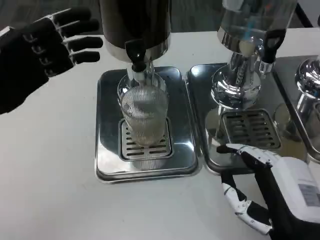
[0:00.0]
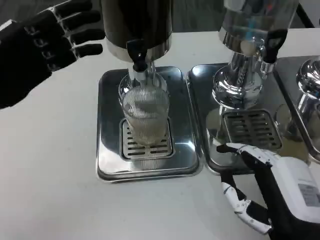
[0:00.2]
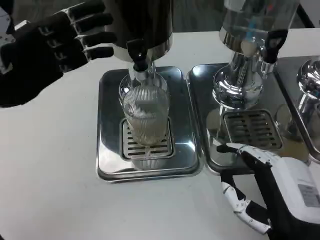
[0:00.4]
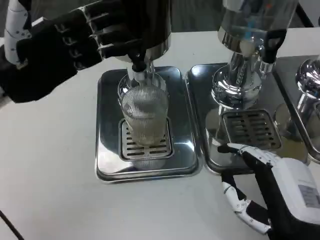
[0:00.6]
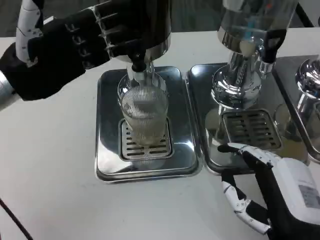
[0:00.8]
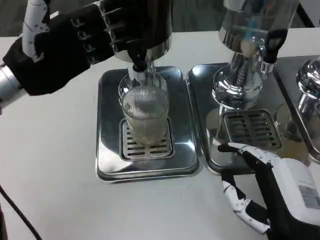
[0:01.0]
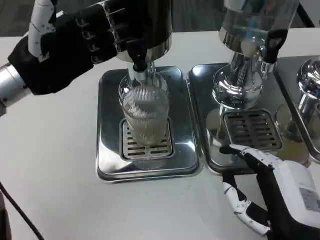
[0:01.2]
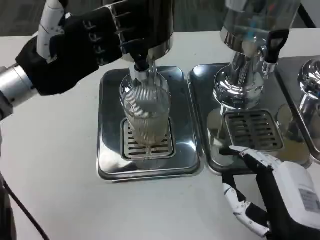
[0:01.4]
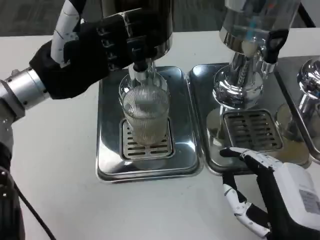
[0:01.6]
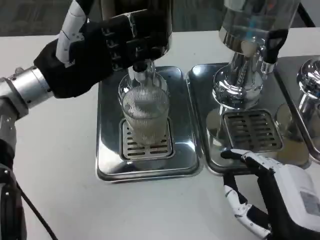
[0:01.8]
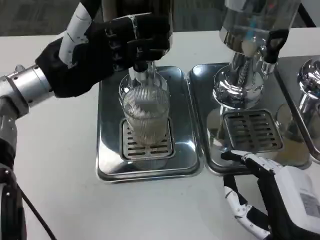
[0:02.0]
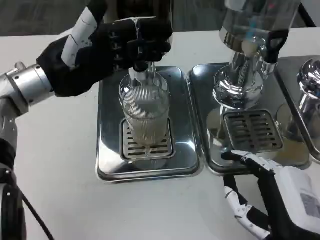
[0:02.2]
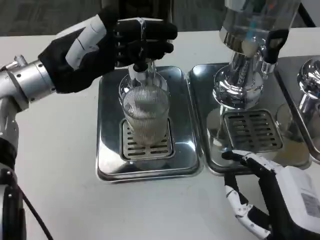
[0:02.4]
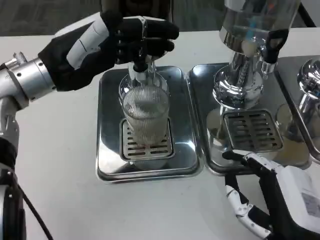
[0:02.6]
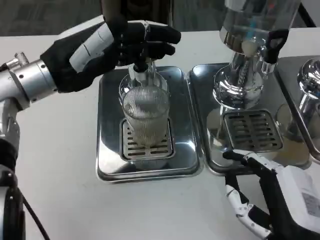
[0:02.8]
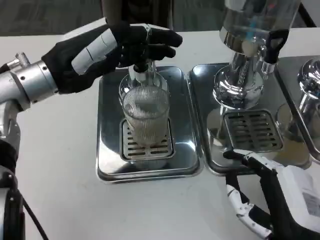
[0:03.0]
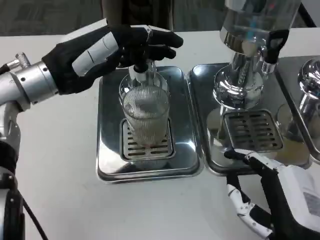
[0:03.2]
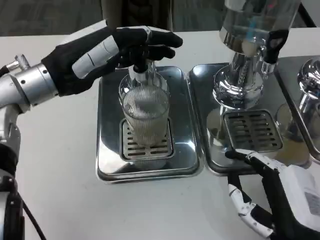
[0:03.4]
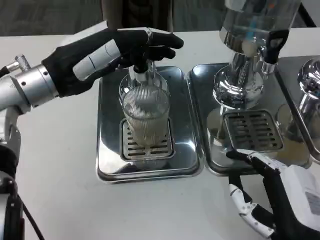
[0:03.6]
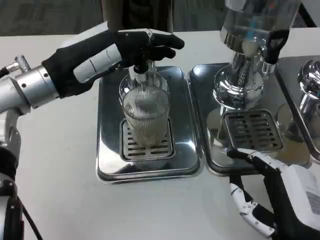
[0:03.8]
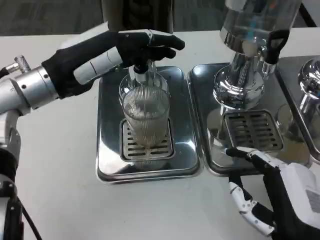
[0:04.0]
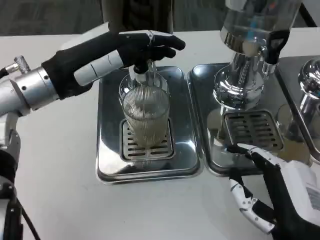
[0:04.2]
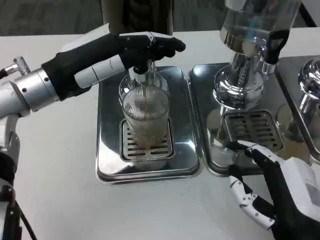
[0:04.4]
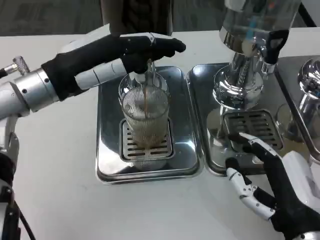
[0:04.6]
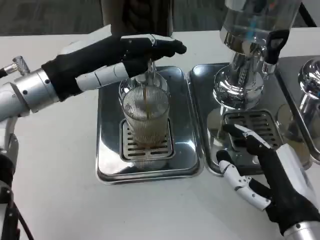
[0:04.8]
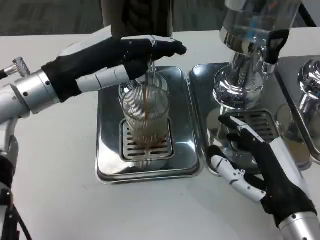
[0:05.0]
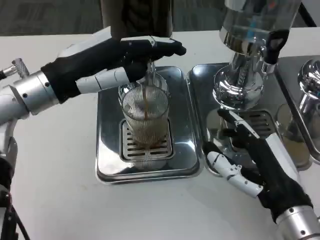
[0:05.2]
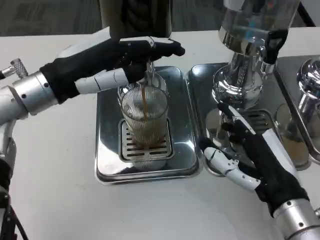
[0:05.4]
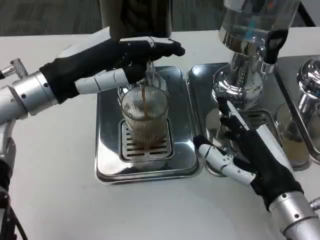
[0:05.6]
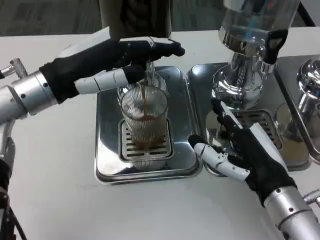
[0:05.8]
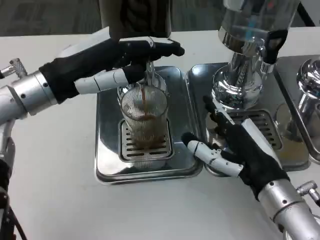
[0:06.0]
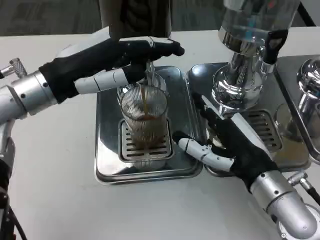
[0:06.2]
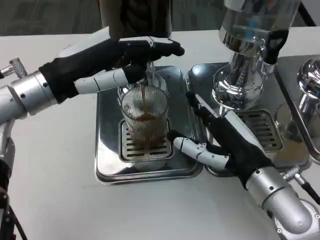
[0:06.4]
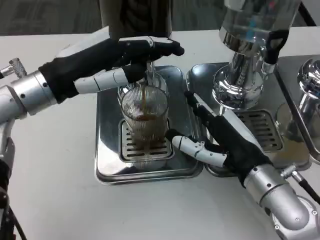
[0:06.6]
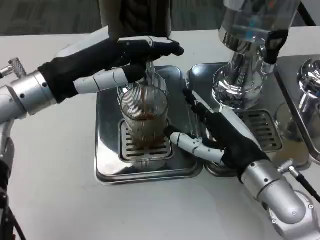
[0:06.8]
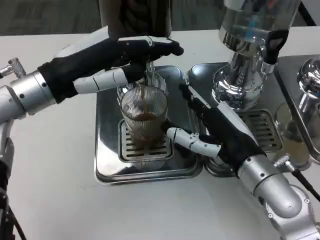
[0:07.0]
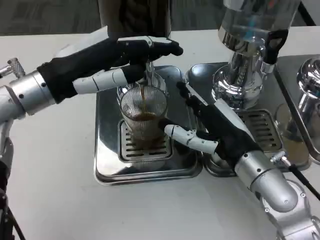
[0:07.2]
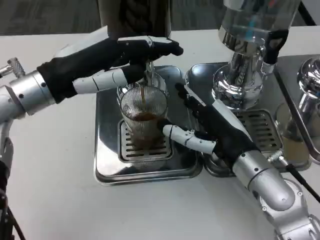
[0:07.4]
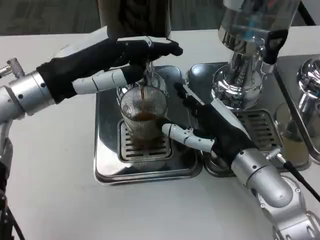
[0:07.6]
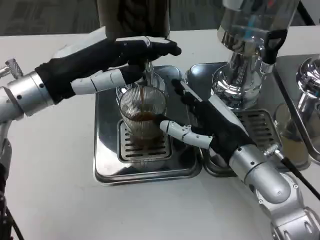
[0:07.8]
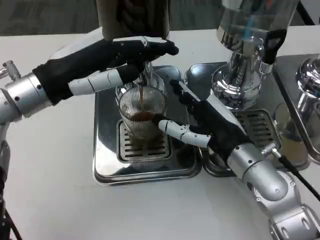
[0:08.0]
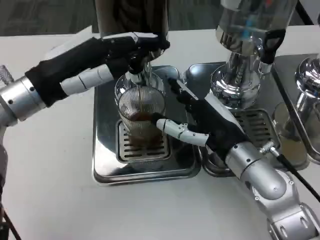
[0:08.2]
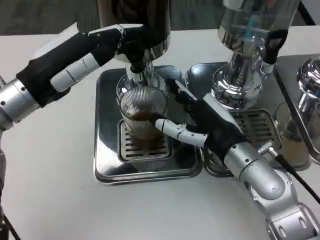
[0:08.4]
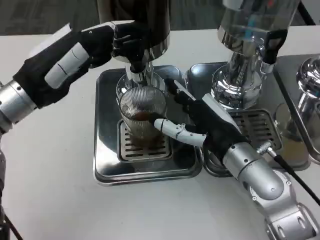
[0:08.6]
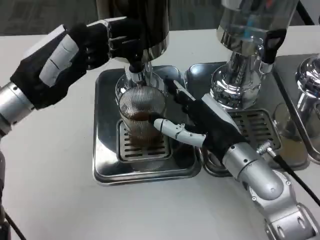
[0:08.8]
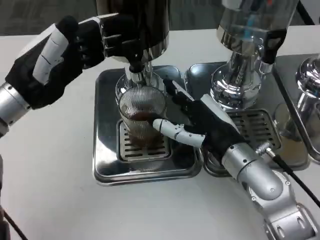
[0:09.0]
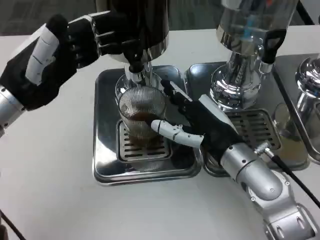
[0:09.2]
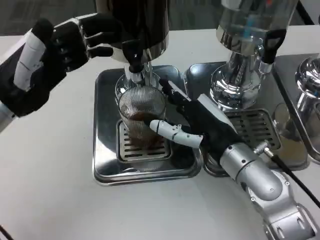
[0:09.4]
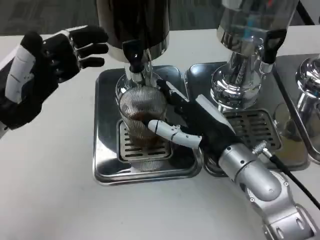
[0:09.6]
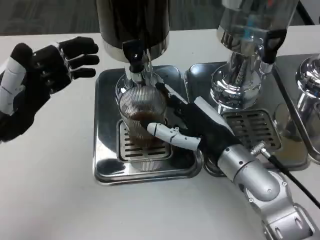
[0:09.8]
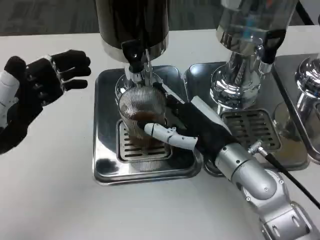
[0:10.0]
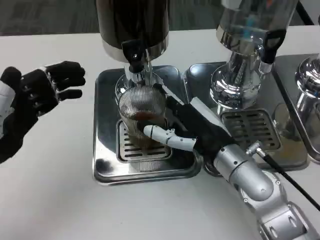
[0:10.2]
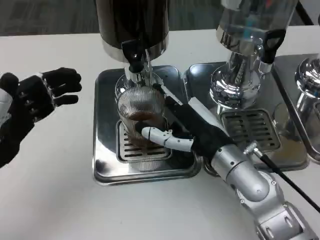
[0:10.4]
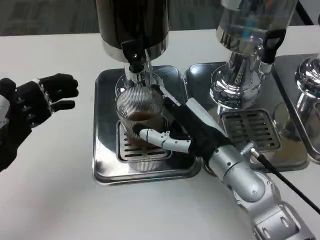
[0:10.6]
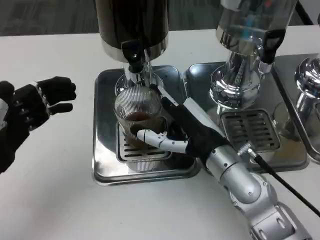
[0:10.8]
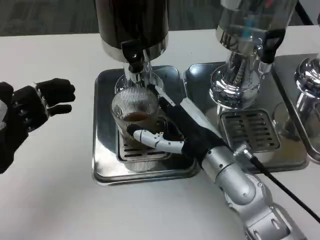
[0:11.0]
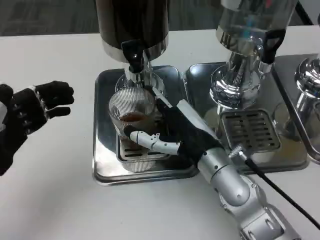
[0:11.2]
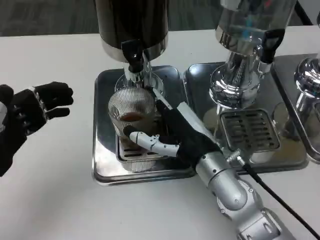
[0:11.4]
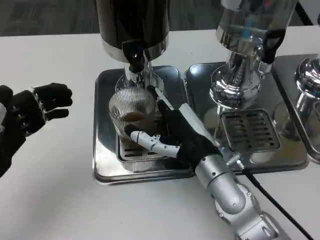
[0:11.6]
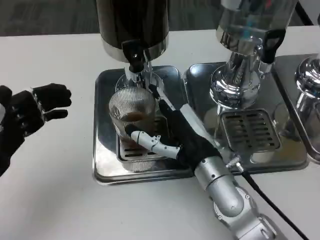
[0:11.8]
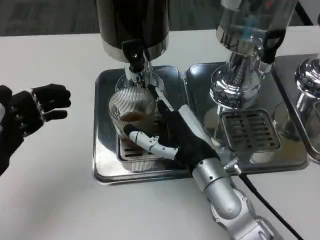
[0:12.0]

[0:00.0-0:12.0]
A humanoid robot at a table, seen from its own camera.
Task of the whole recording: Grasp the cup under the faucet to collect the drink, then remove the cup.
0.0 to 1.6 s: The left hand travels to the right and forward by about 10 cm.
3.0 to 4.4 s: There are only small adjustments of the hands.
4.4 to 6.0 s: The right hand moves forward, approximately 10 cm.
6.0 to 7.6 s: The right hand moves approximately 5 cm.
9.0 to 10.4 s: The left hand is displaced backward and downward by some 10 cm.

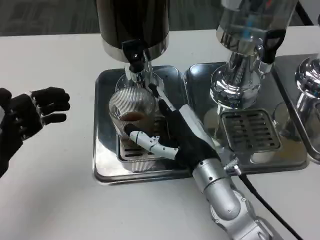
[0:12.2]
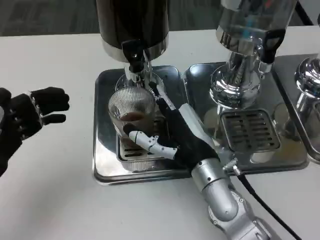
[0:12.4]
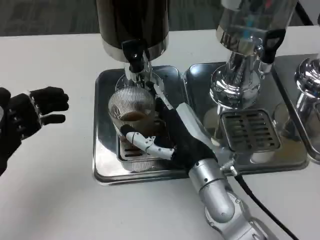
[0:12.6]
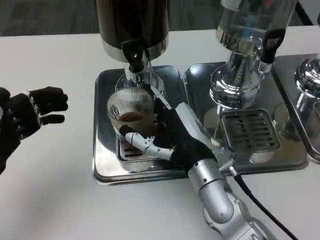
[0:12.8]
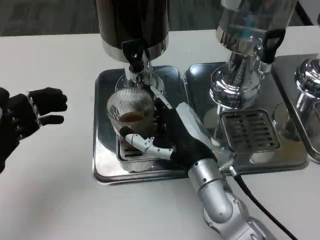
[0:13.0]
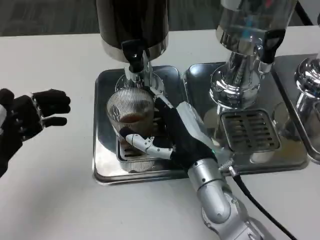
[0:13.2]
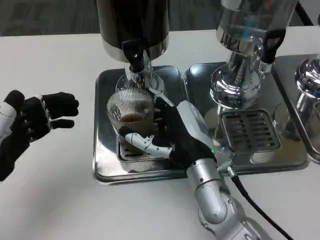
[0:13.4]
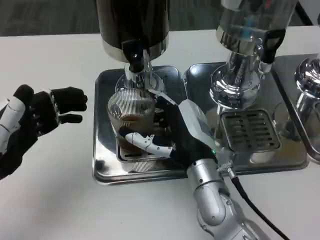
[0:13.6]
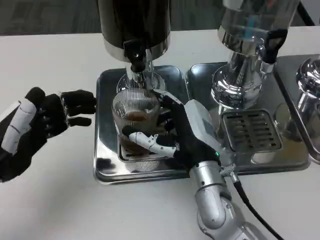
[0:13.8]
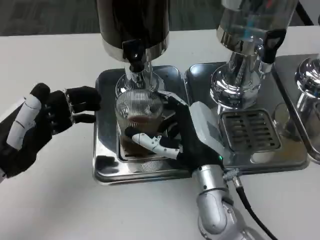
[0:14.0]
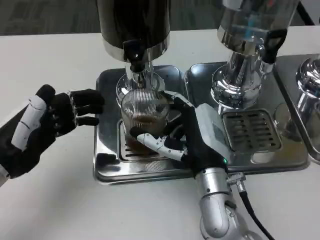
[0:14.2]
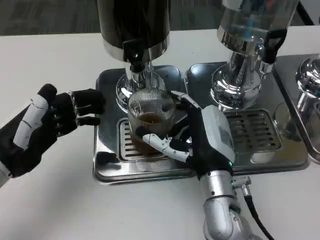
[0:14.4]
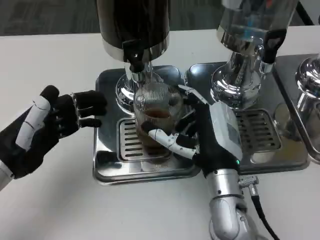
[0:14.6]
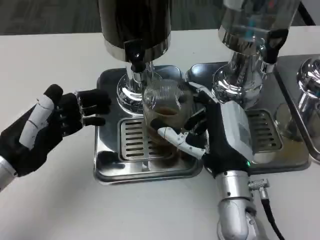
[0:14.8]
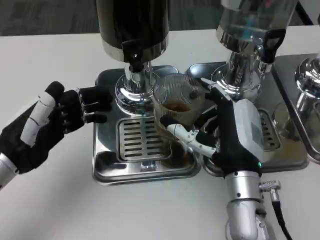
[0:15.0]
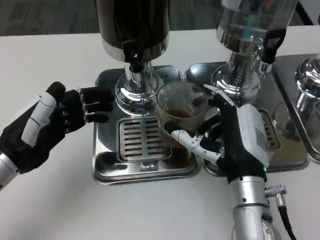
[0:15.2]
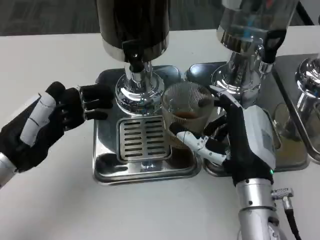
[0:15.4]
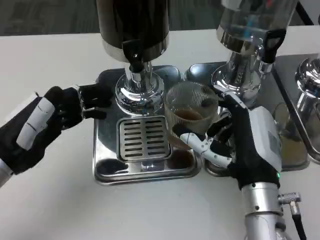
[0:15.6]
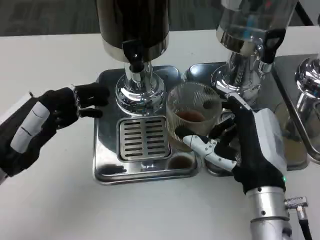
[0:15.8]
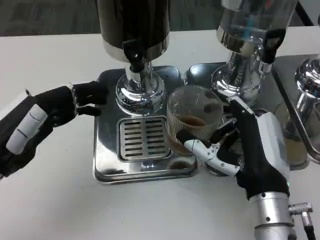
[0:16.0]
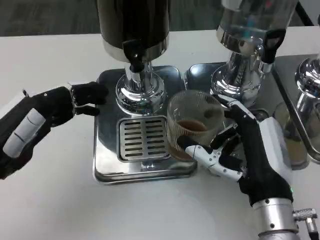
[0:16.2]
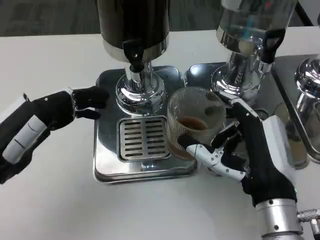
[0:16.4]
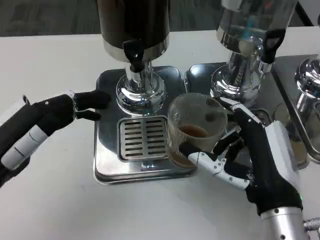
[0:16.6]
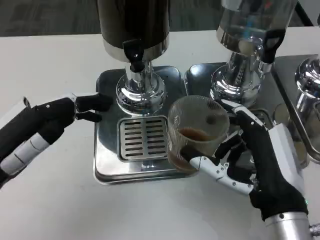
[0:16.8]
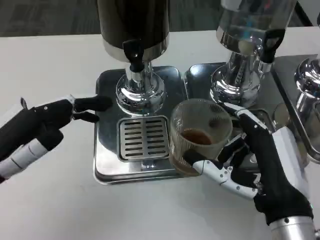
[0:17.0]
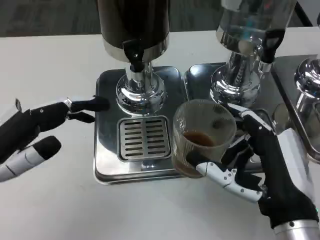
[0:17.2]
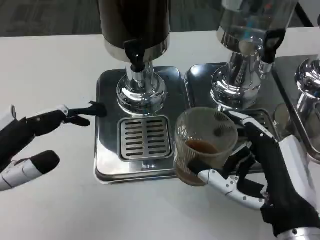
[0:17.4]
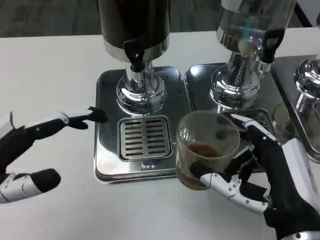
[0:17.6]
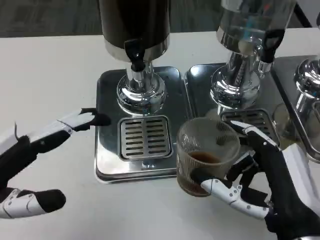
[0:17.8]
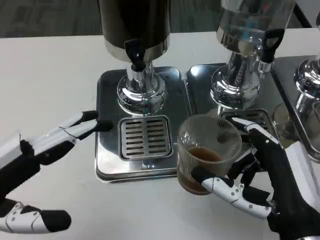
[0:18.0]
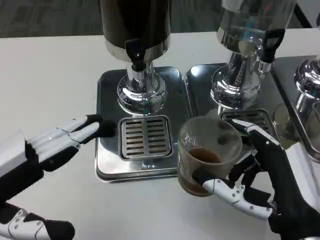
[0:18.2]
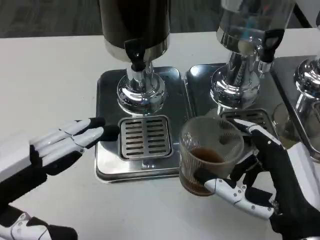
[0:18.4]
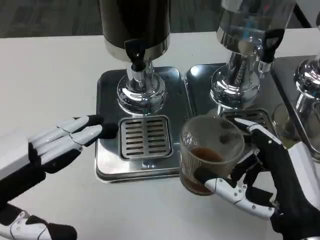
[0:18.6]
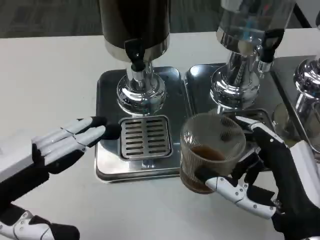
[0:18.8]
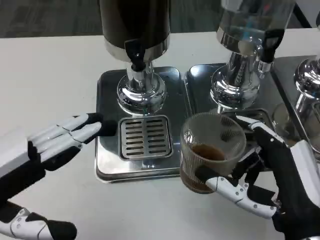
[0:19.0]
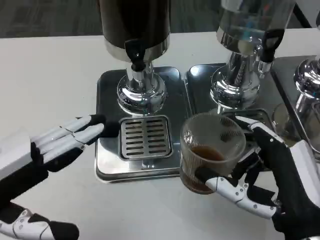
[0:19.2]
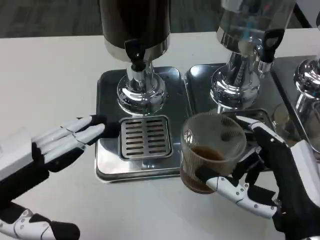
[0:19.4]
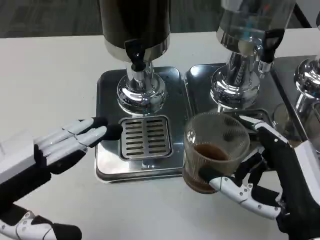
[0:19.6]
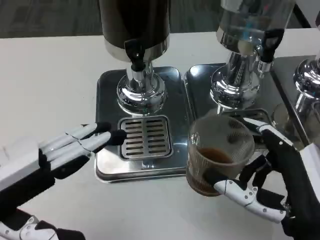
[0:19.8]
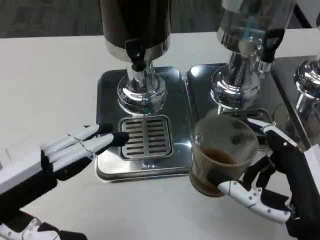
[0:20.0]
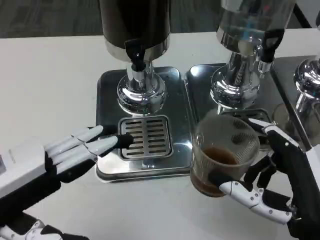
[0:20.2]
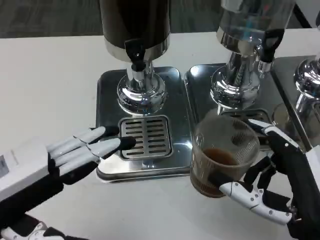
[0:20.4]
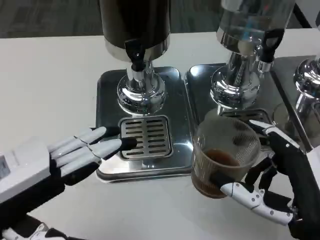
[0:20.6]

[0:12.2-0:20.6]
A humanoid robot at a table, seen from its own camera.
Task of the whole recording: Grasp the cup under the faucet to collect the drink, then remove the cup.
12.2 to 13.6 s: The hands stay close to where they were, moving slightly.
15.0 to 16.4 s: The right hand is displaced backward by approximately 5 cm.
16.4 to 17.8 s: The left hand is displaced backward by about 5 cm; the right hand changes place by approximately 5 cm.
17.8 to 20.6 s: The hands stay close to where they were, moving slightly.

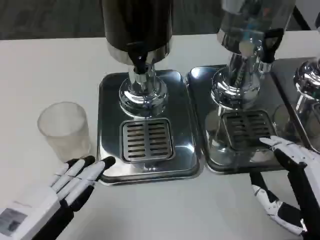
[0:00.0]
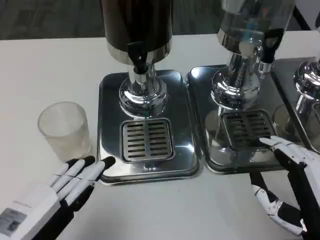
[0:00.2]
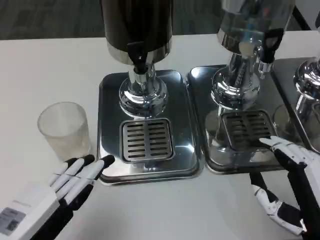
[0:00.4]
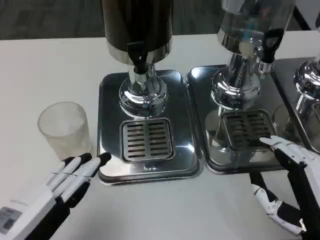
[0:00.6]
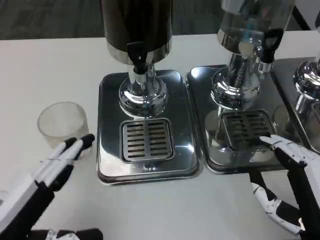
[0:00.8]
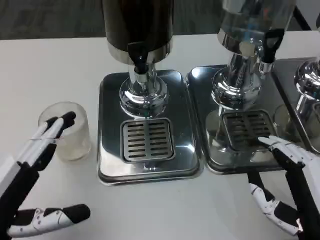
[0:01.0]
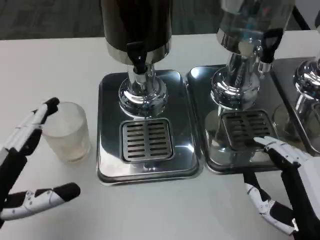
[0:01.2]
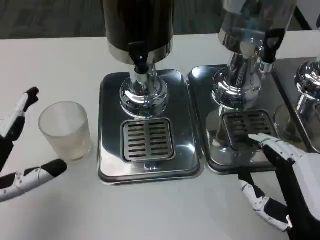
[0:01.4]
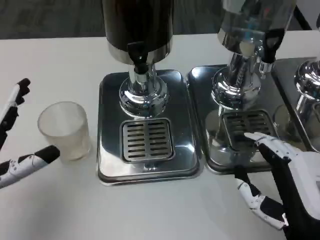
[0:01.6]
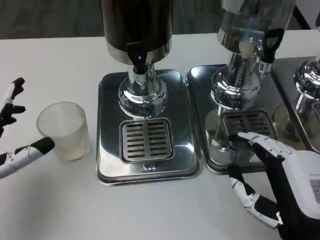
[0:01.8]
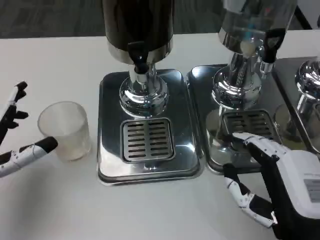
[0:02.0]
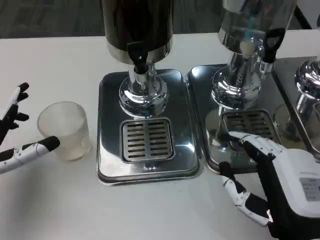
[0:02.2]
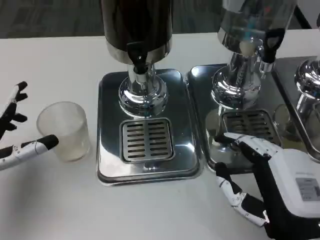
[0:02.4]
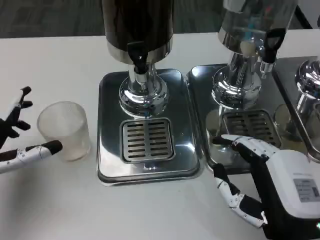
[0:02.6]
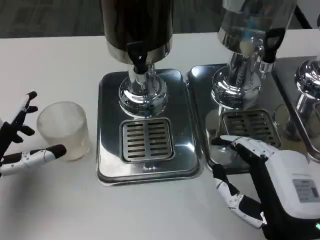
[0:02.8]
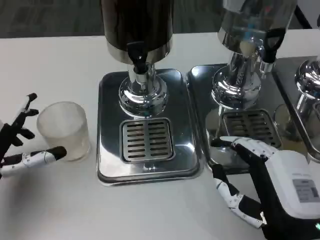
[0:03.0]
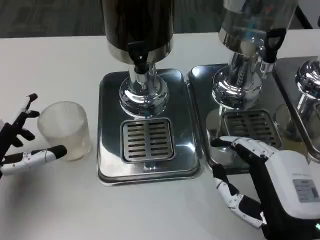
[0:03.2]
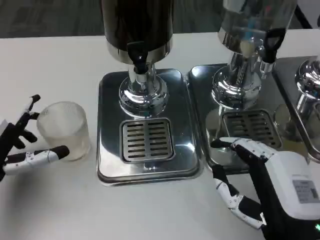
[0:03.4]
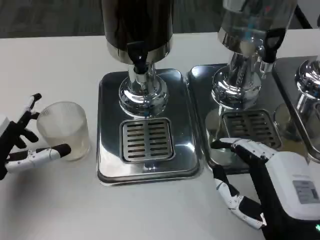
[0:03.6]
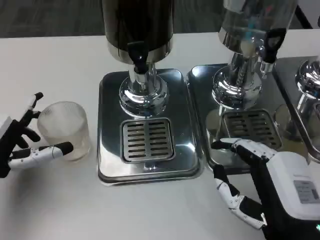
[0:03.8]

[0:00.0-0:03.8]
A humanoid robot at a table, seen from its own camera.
Task of the whole recording: Grasp the cup under the faucet to collect the drink, then remove the cup.
0.0 to 1.2 s: The hands stay close to where they were, moving slightly.
1.2 to 2.6 s: The left hand is displaced forward by some 10 cm.
2.6 to 3.8 s: The hands stay close to where they were, moving slightly.
